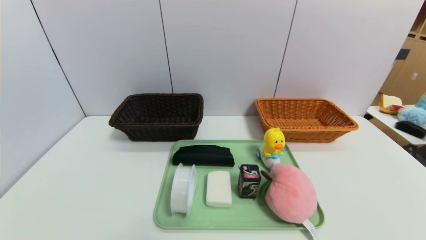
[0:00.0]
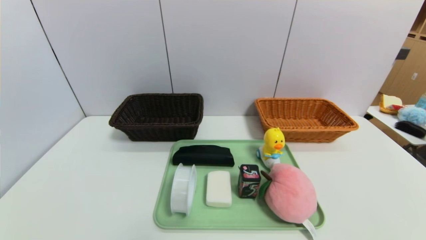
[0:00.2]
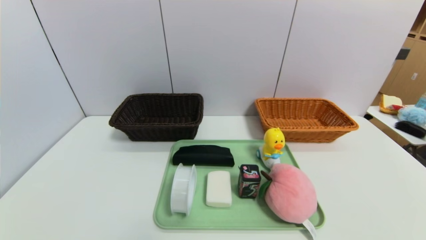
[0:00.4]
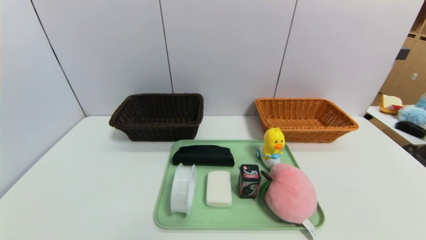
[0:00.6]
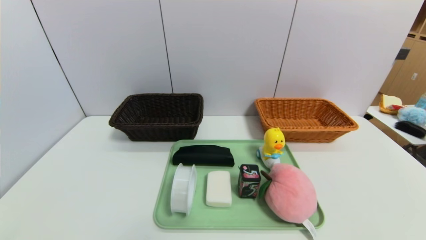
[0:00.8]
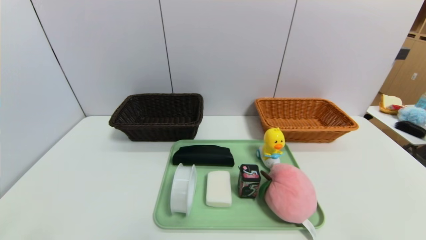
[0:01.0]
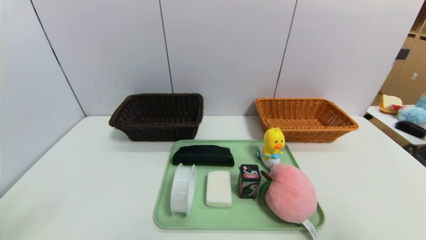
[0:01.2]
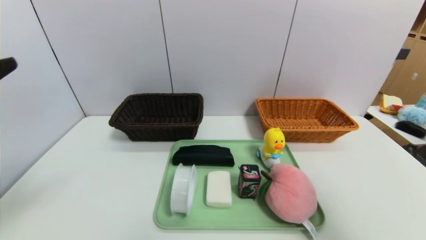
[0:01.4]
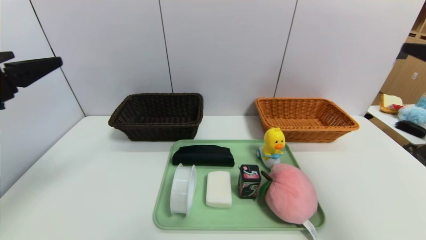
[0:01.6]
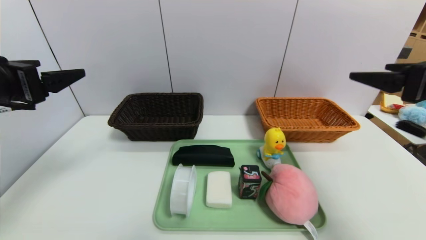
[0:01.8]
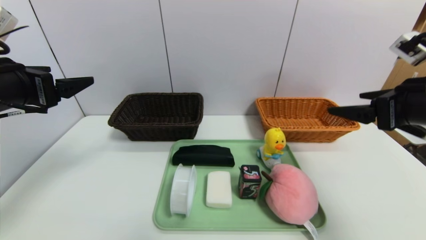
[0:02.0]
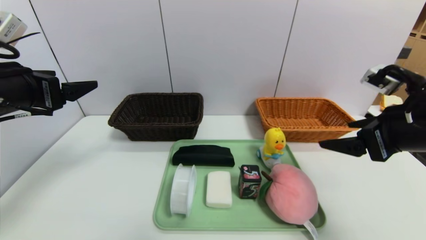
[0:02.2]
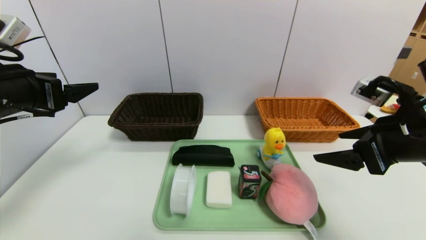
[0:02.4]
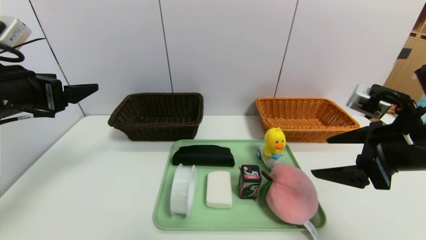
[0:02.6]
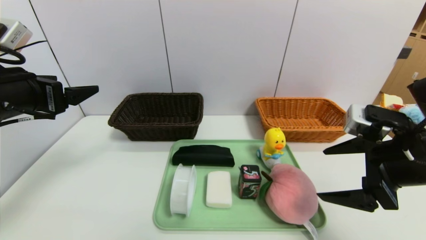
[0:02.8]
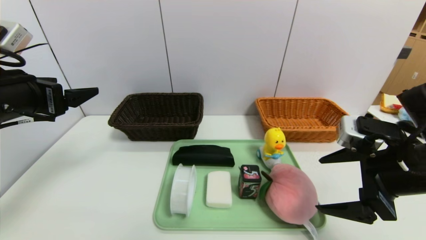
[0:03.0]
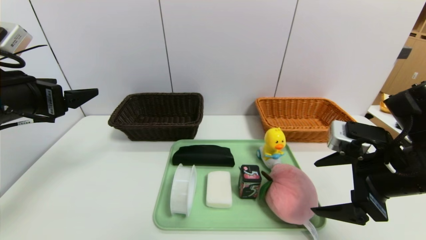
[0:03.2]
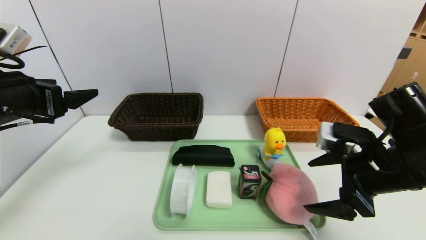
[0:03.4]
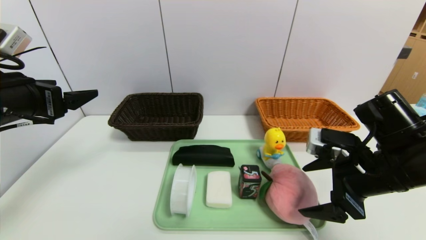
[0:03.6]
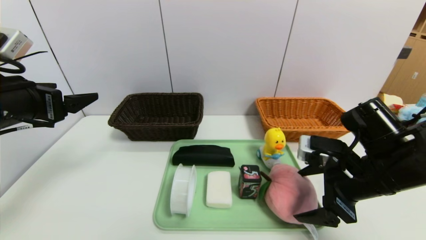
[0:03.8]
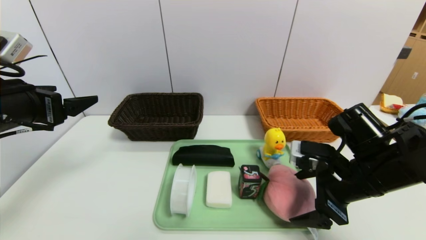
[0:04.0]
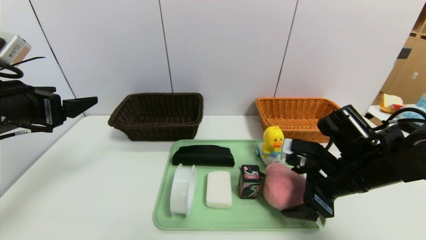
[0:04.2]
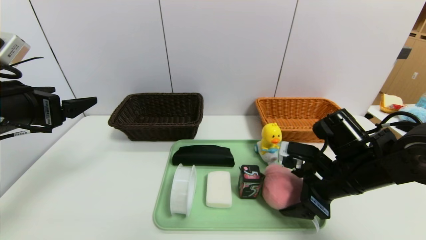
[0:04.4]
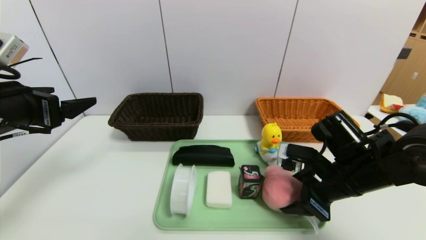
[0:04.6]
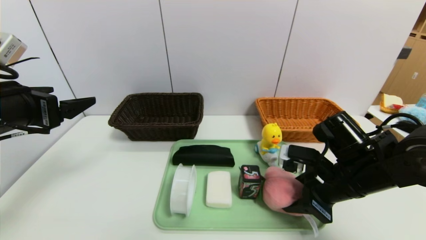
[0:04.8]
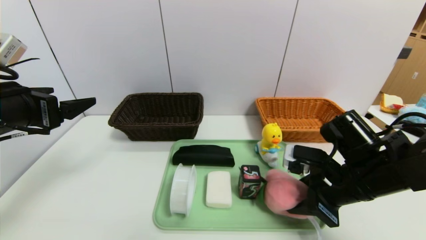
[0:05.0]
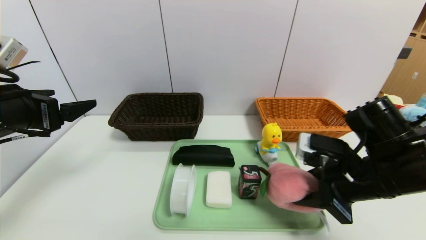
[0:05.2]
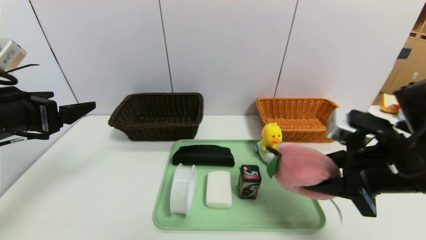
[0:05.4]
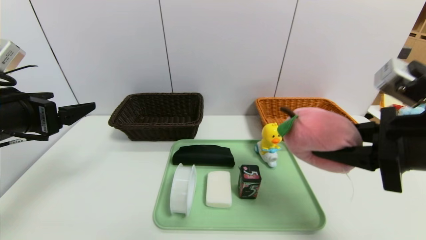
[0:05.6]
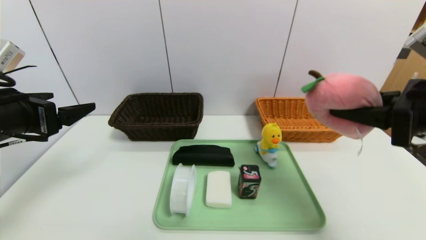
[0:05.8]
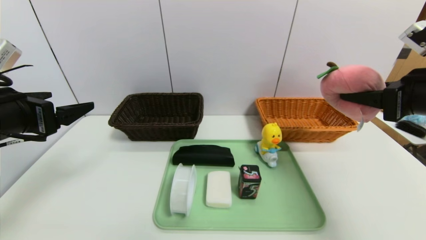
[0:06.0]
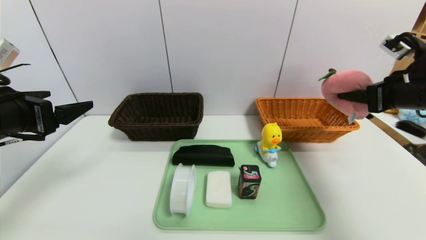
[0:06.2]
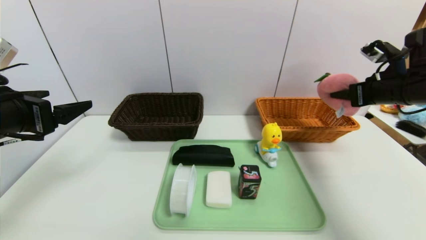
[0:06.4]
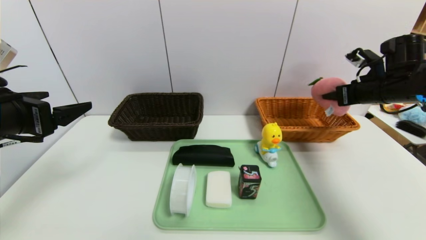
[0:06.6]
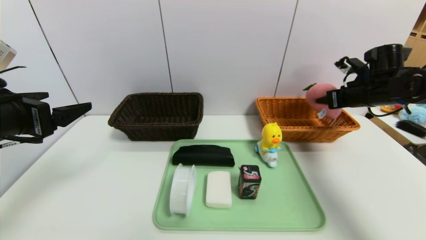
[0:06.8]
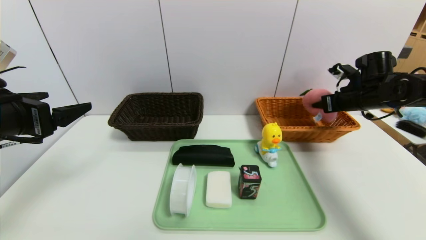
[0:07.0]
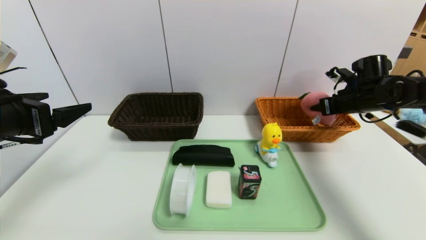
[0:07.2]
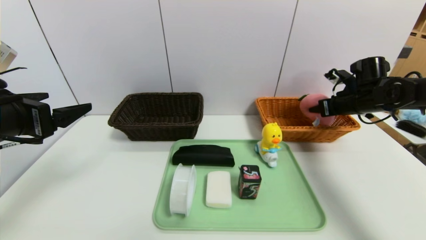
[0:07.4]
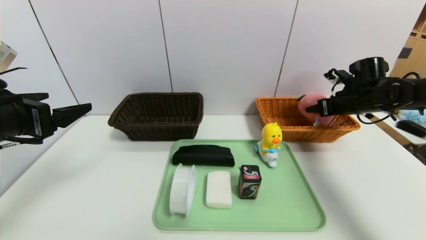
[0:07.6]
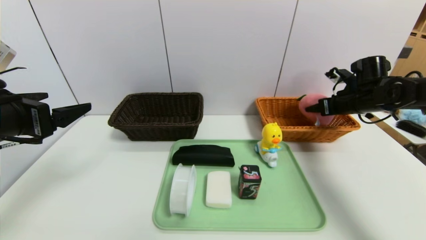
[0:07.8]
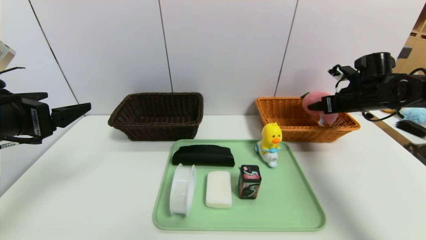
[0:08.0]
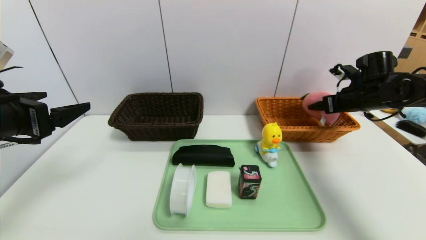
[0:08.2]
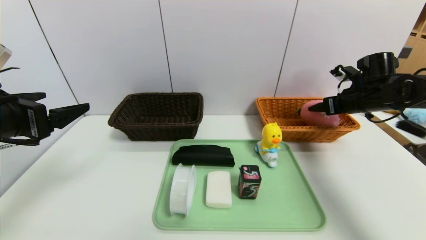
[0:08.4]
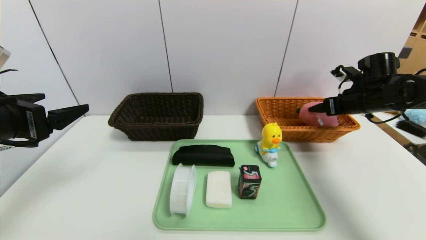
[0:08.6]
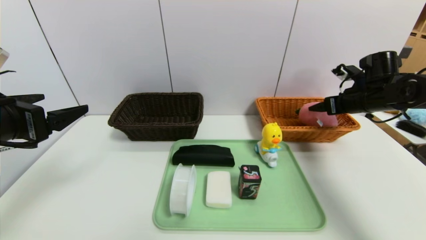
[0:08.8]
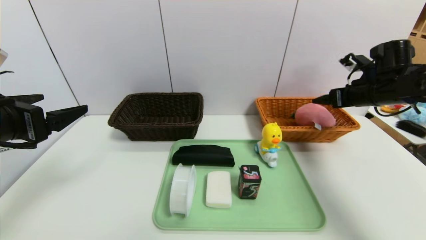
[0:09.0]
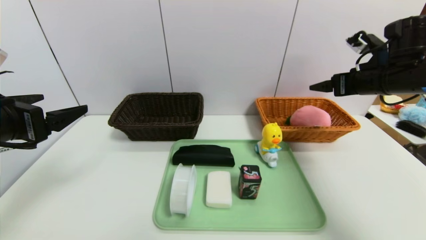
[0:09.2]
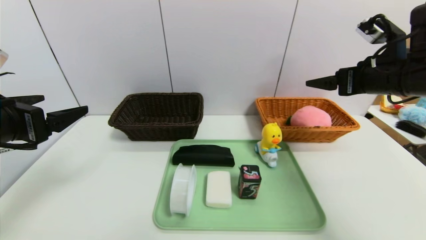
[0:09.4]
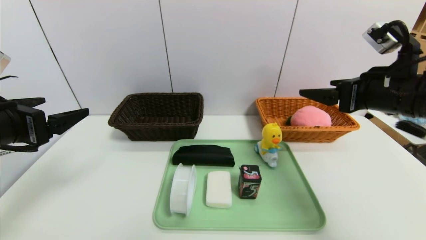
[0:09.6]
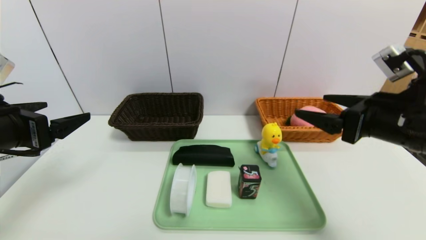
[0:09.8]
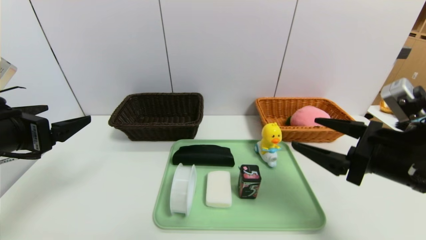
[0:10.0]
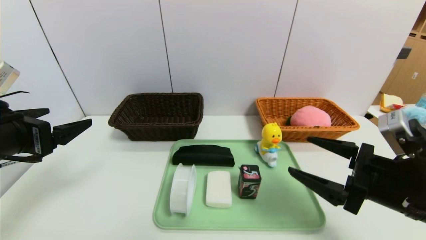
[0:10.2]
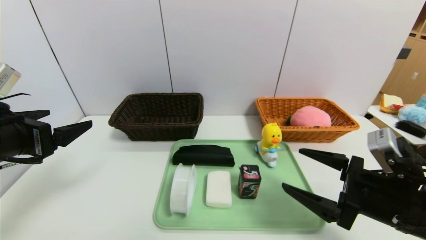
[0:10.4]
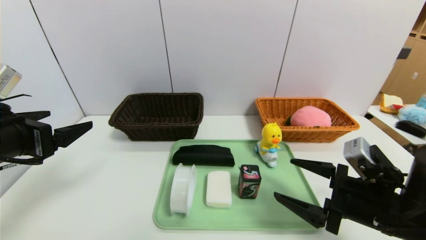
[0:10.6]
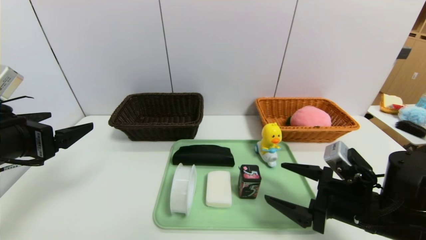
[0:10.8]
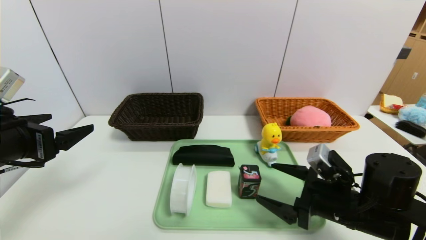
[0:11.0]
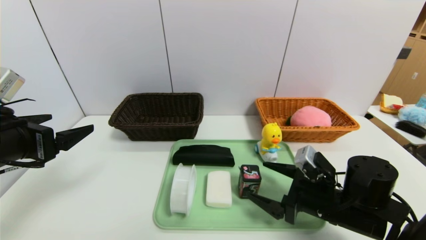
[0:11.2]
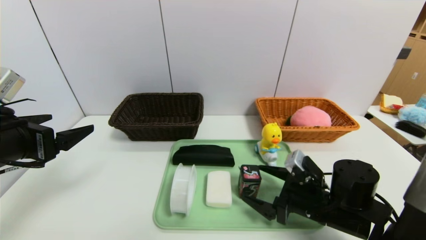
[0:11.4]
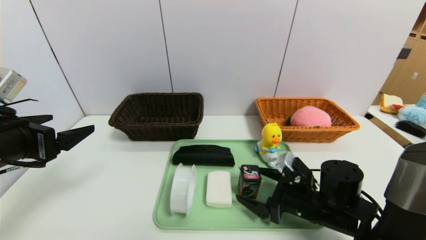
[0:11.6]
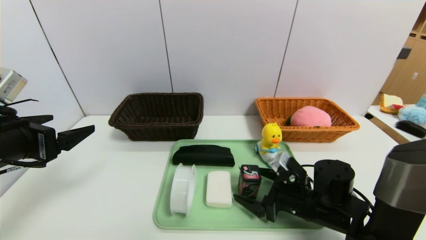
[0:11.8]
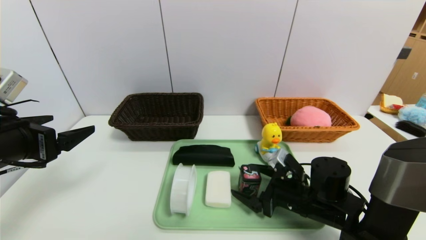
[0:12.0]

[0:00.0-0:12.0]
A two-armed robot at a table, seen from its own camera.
Task of the whole recording: place the food in the right basket with the right gripper, and place the non food items in the left basket with the left gripper.
Step, 0:00.0 to 0:08.6: Grasp the peach and put it in the right basket.
0:00.0 to 0:01.6: The grippers both shift upward and forward by about 30 cm.
0:01.6 to 0:03.0: The left gripper shifts about 5 cm forward, while the right gripper moves downward and to the left, roughly 15 cm.
0:03.0 to 0:04.4: The right gripper heads downward and forward, covering approximately 10 cm.
0:04.4 to 0:06.0: The right gripper is displaced upward and to the right by some 20 cm, and closes.
0:06.0 to 0:07.6: The right gripper heads forward and downward, covering roughly 20 cm, and opens.
0:07.6 to 0:09.0: The right gripper changes place by approximately 5 cm, and opens its fingers.
0:09.0 to 0:10.4: The right gripper shifts about 25 cm backward and to the left.
0:10.4 to 0:12.0: The right gripper shifts about 15 cm downward, forward and to the left.

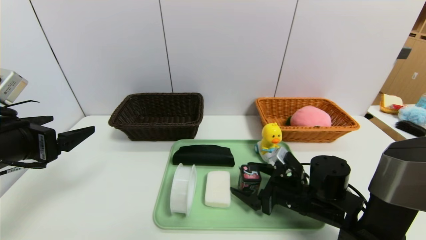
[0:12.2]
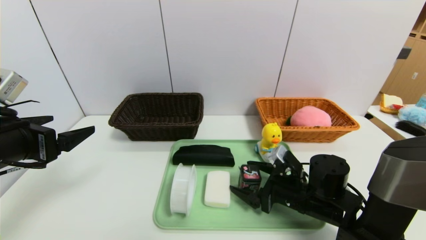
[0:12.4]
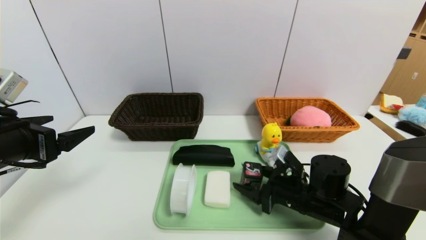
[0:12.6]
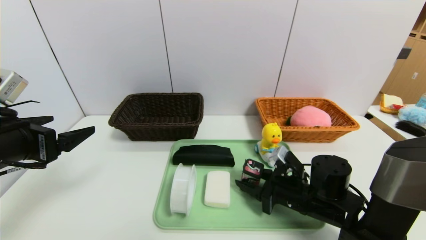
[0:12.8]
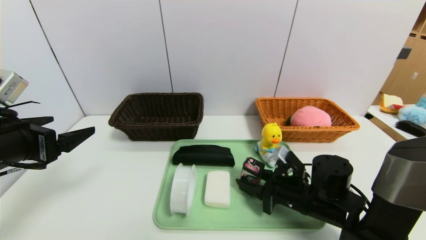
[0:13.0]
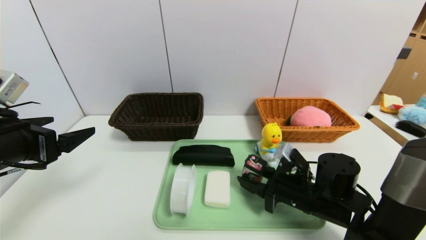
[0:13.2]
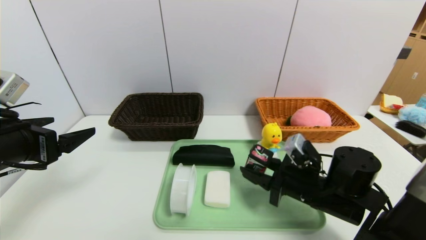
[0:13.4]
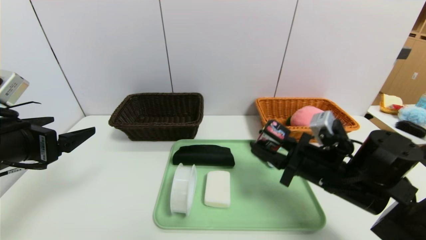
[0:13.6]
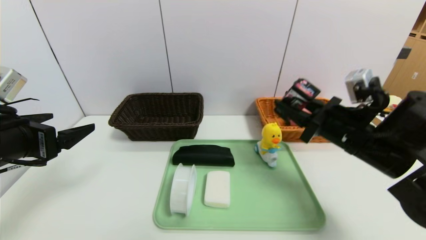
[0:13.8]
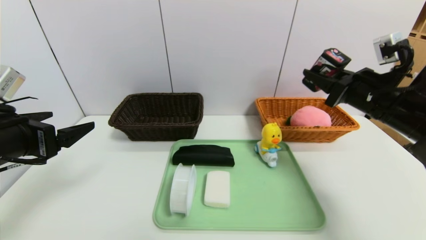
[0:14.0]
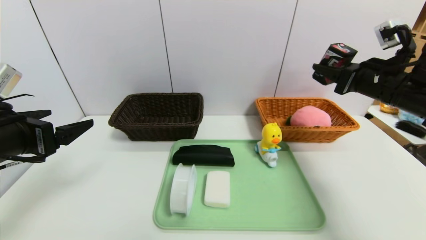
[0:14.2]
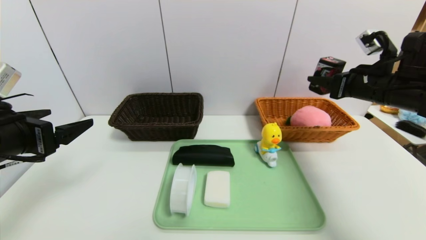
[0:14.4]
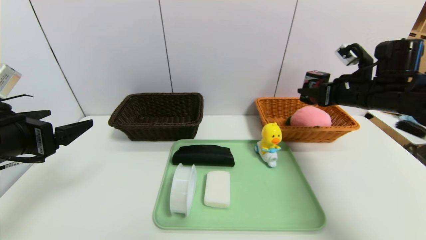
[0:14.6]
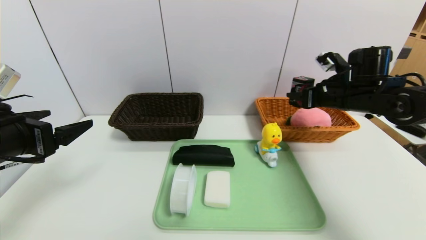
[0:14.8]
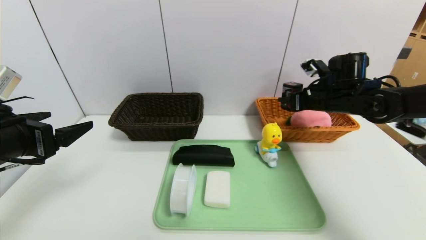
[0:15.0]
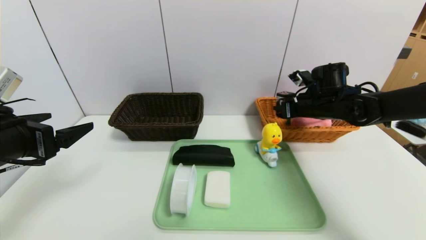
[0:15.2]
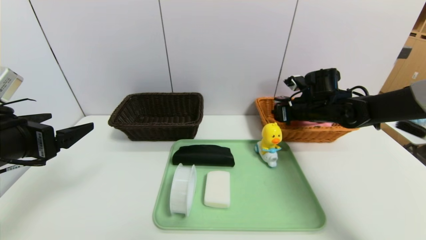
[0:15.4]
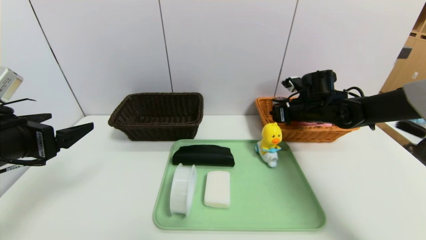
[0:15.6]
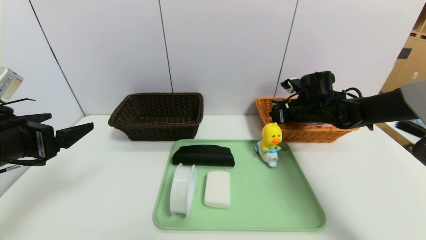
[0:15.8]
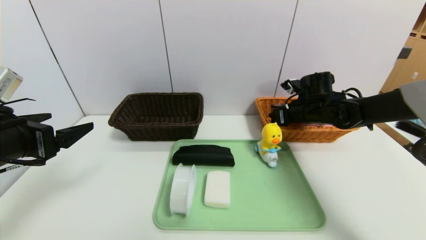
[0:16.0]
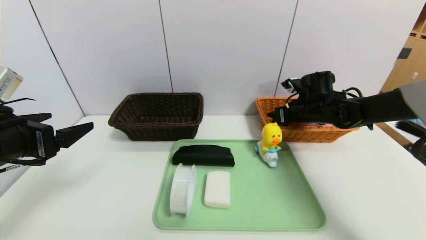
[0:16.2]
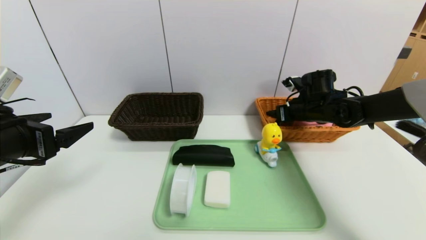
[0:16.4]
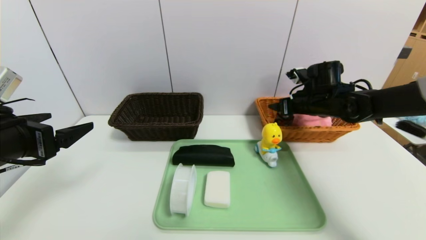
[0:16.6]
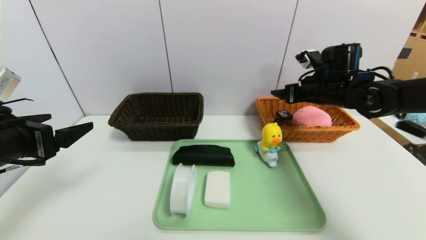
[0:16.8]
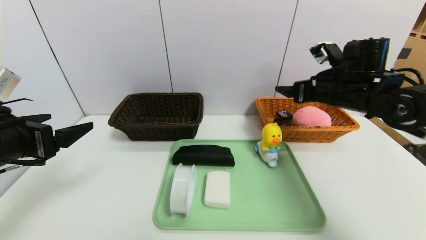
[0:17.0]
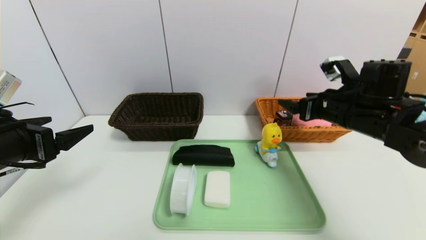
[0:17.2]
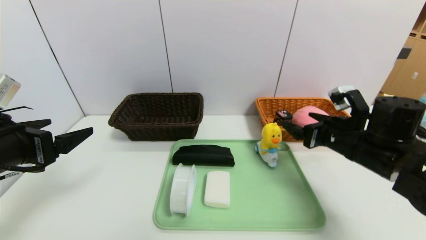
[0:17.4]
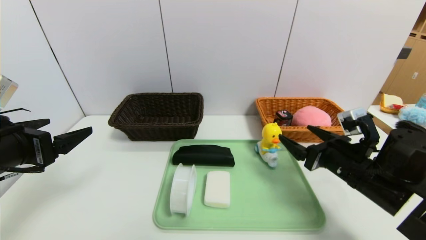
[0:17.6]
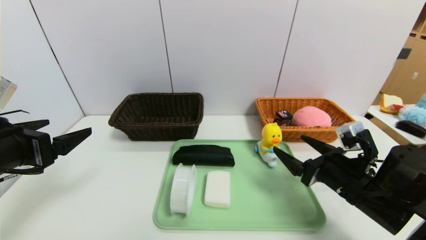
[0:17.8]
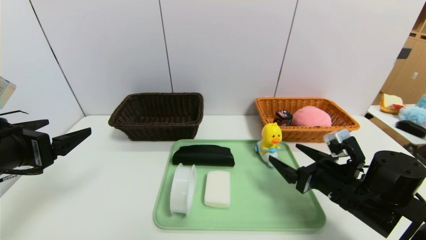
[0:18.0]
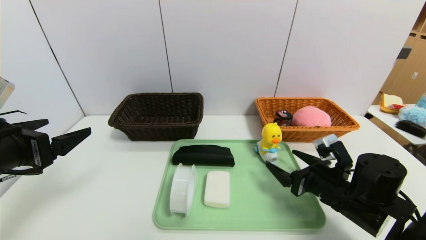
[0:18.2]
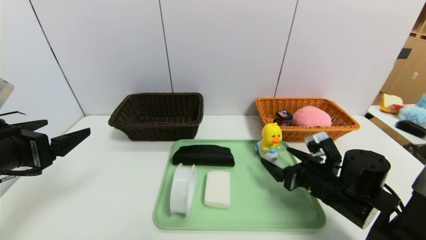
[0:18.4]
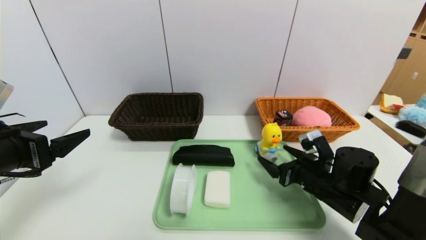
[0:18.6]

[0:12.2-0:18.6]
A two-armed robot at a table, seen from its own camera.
Task of the whole recording: place the food in the right basket with the right gripper, and place the non food items in the left basket with the left gripper.
Step, 0:12.2 to 0:16.8: Grasp the round chewing gum and put it in the right basket.
0:12.2 to 0:13.8: The right gripper shifts some 15 cm upward and to the right, and closes.
0:13.8 to 0:15.4: The right gripper moves forward, roughly 15 cm.
0:15.4 to 0:17.0: The right gripper is displaced upward and backward by approximately 10 cm, and opens its fingers.
0:17.0 to 0:18.6: The right gripper goes approximately 20 cm downward and backward.
